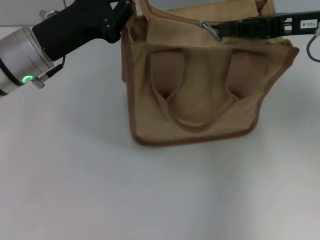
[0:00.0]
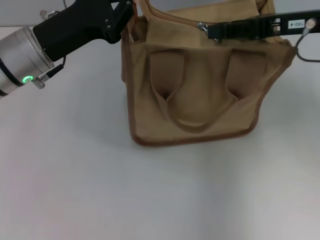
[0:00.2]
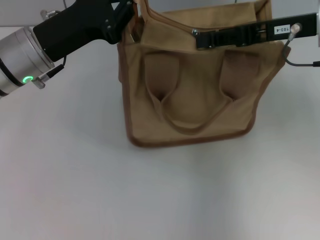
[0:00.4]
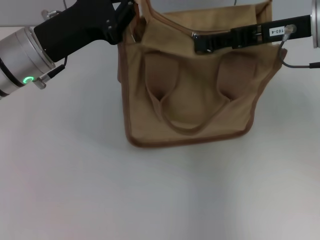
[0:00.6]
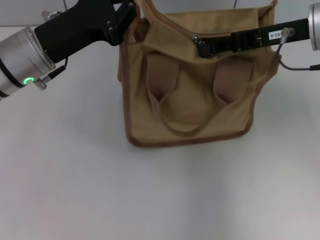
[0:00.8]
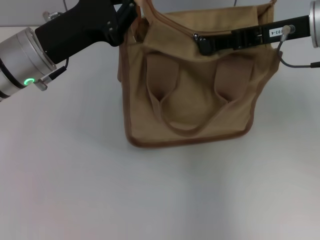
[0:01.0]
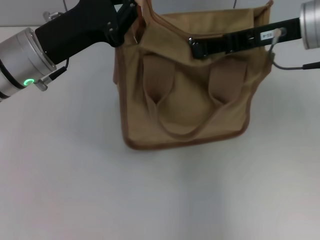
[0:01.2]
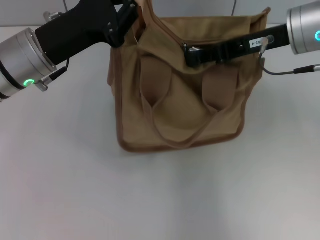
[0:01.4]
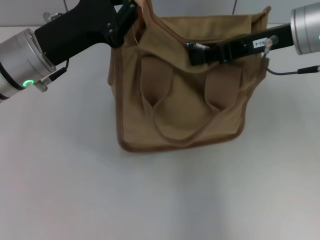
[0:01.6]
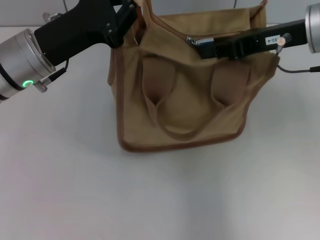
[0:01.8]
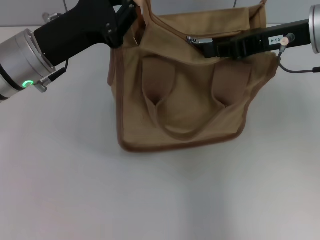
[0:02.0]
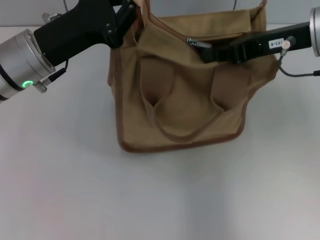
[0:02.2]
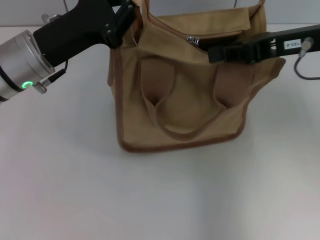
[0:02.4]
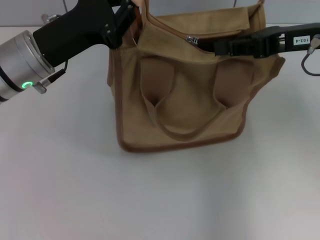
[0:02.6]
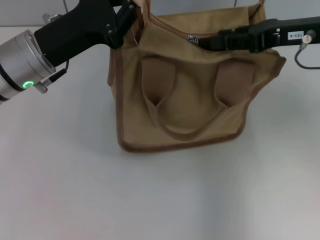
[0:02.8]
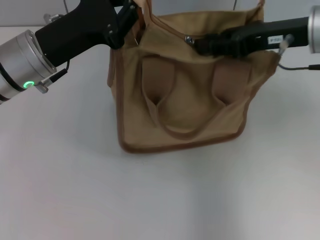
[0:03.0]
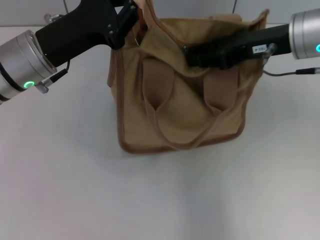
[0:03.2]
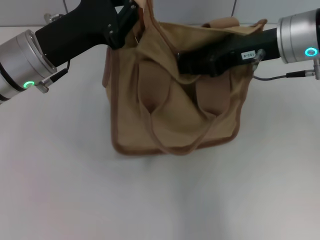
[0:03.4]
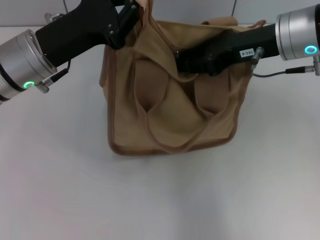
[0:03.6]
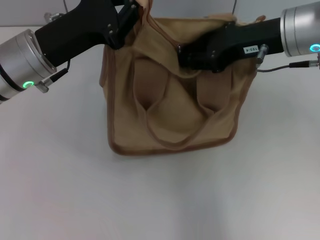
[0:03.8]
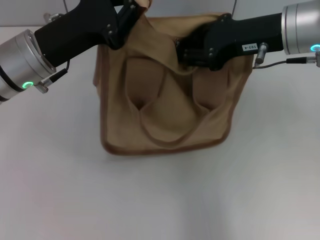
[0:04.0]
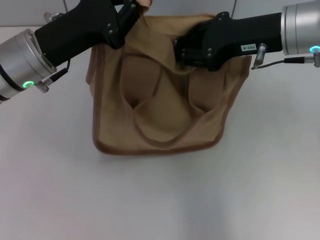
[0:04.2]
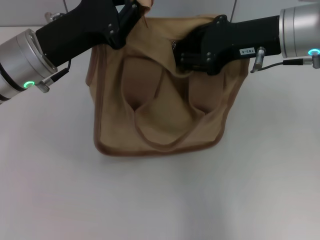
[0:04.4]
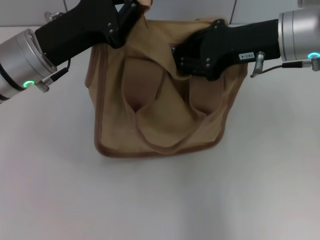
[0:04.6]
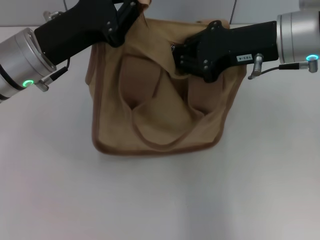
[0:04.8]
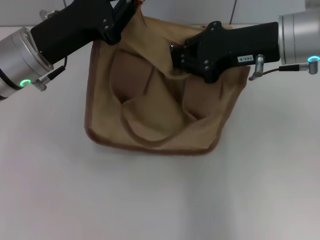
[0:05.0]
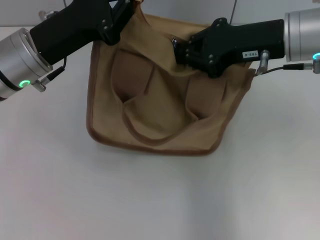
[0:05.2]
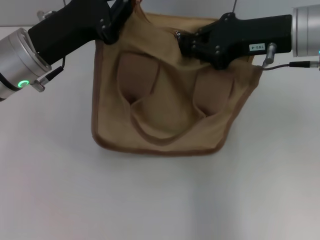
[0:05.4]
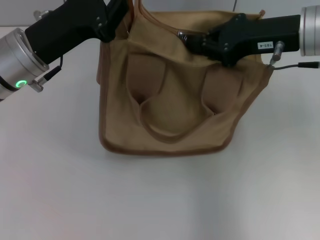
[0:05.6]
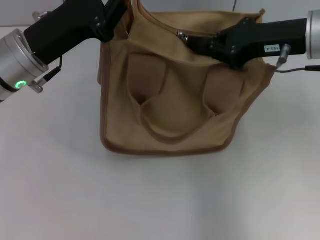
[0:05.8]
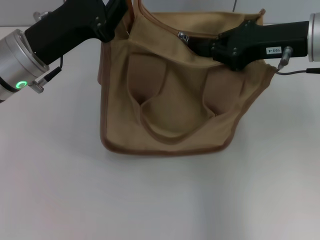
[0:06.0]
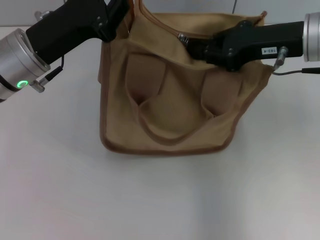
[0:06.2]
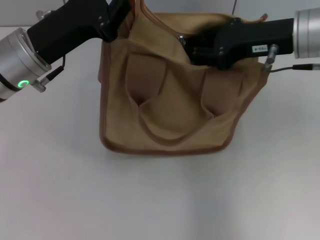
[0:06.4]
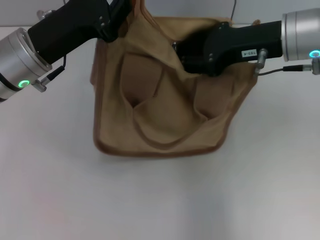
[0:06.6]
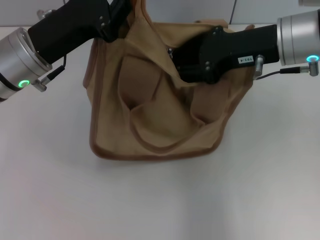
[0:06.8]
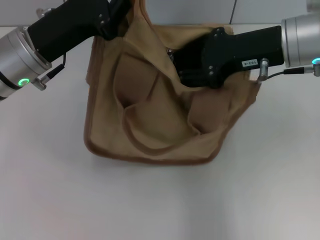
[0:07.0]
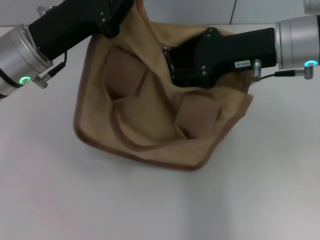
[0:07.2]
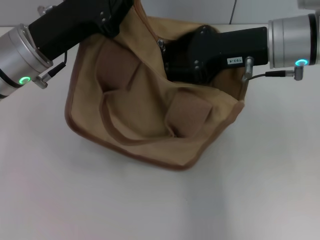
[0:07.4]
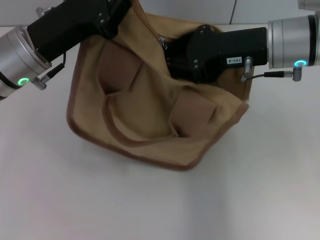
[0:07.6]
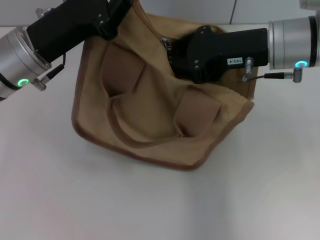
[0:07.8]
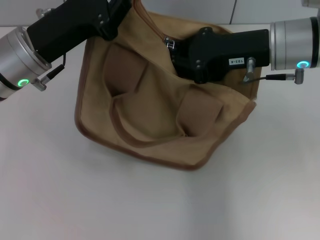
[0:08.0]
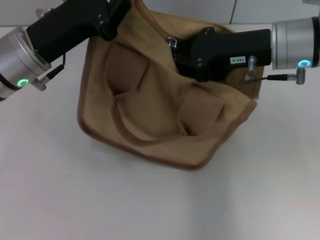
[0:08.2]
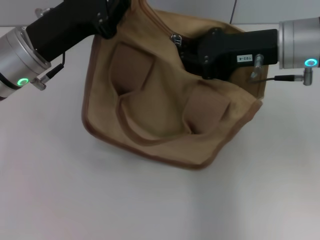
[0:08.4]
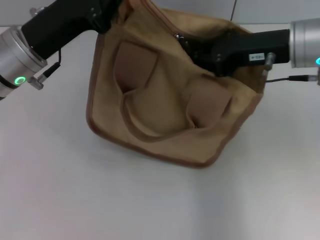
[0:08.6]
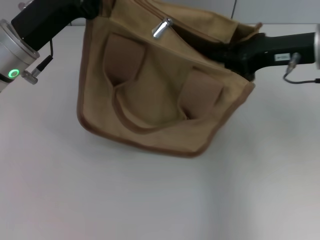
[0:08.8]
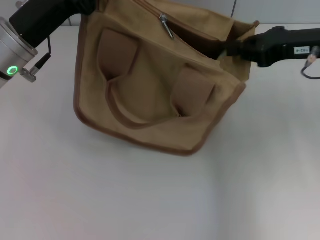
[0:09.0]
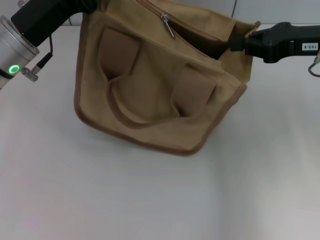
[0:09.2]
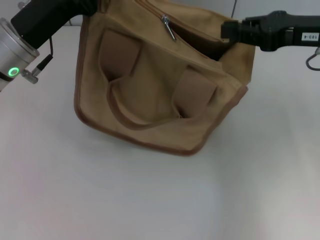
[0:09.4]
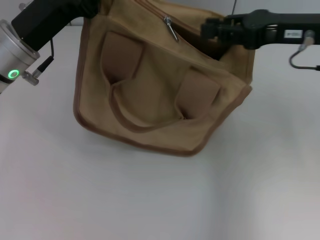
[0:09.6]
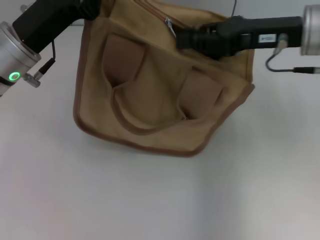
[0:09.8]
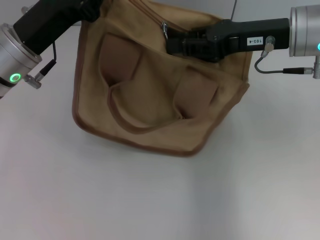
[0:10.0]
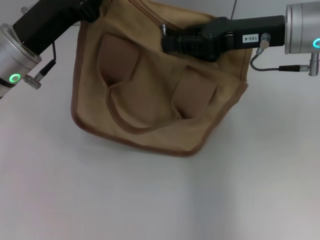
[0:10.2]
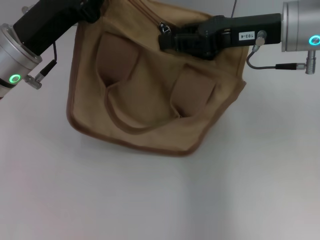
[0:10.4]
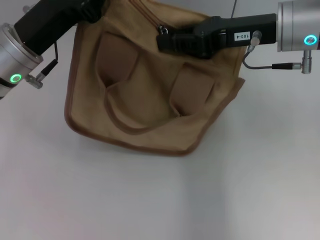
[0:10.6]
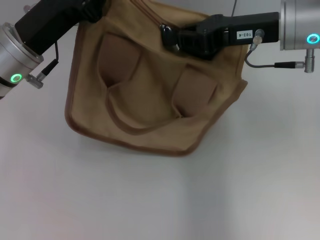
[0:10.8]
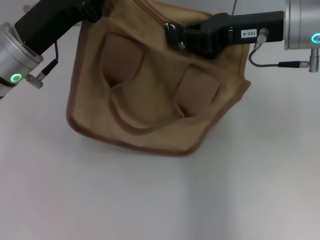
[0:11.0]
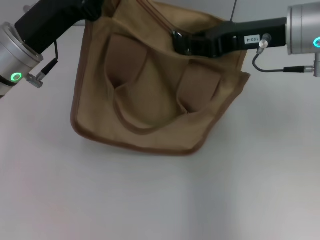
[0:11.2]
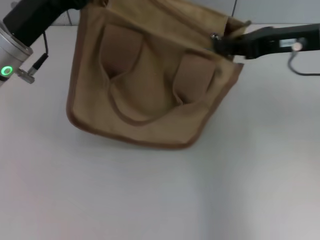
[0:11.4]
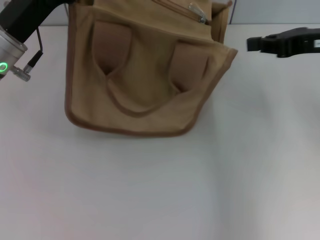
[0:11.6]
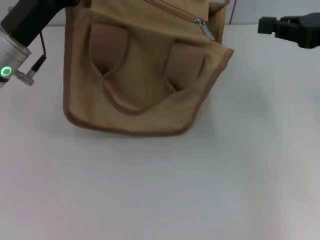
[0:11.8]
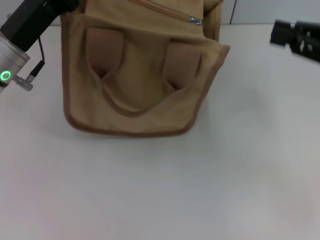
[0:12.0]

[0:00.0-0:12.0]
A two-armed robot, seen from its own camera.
Step, 0:00.0 to 0:11.4: Pull up the zipper with your right hand.
0:00.0 to 0:01.6: The right gripper shifts roughly 5 cm to the left.
0:01.6 to 0:03.0: The grippers stay close to where they were, moving slightly.
0:04.4 to 0:06.0: The grippers move only a little.
0:06.0 to 0:07.6: The right gripper opens up.
0:07.6 to 0:09.0: The right gripper is displaced to the right by approximately 10 cm, and closes up.
0:09.0 to 0:10.4: The right gripper goes approximately 5 cm to the left, and opens.
0:10.4 to 0:12.0: The right gripper goes approximately 15 cm to the right and backward.

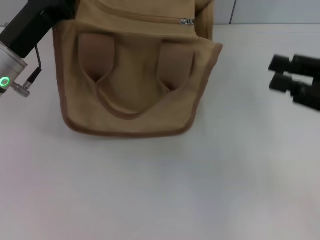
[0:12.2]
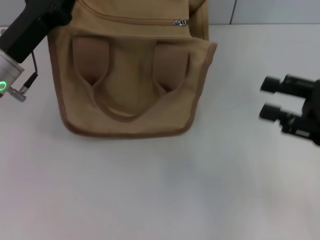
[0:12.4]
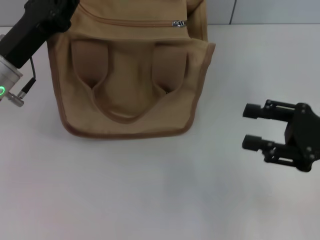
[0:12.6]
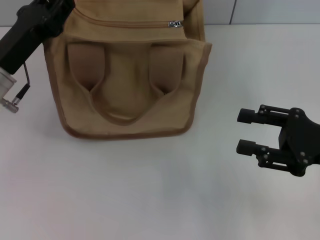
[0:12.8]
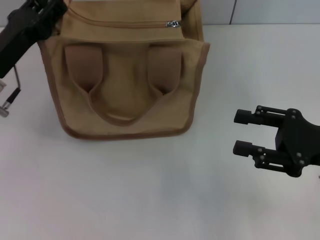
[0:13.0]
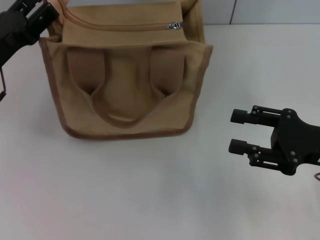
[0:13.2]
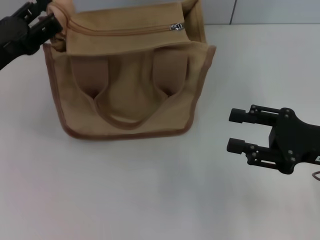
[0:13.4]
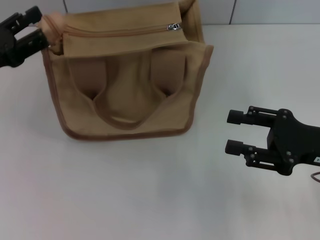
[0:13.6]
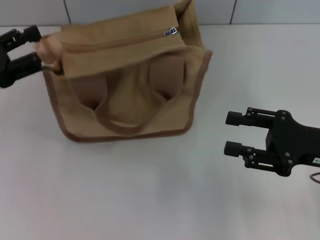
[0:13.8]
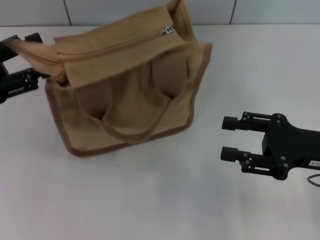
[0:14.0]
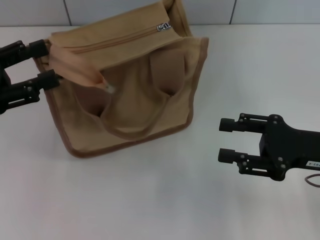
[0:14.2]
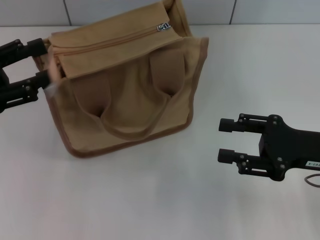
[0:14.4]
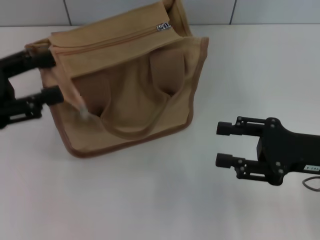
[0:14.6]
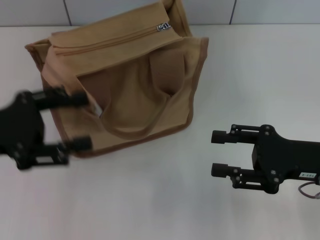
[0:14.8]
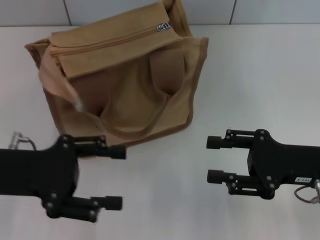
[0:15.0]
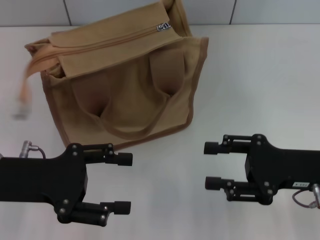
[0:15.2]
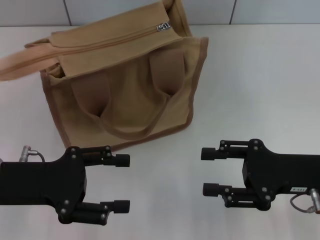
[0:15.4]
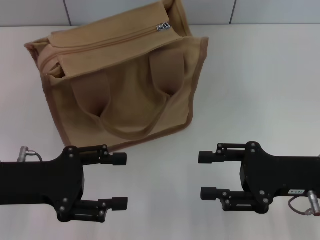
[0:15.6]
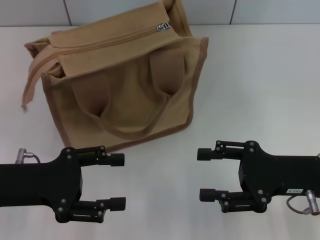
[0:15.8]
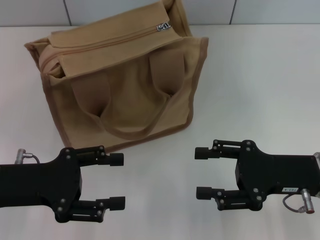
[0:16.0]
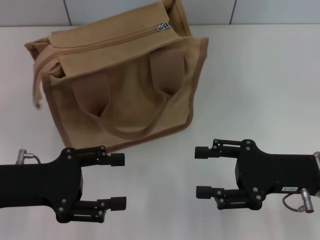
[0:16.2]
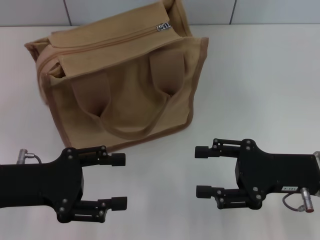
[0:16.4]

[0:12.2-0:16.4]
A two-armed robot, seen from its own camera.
Step, 0:12.2 to 0:14.8: Grab the zipper with your left hand.
0:12.2 to 0:13.6: The right gripper shifts roughly 5 cm downward, and opens. Meanwhile the left gripper moves to the left, about 10 cm, and opens.
0:13.6 to 0:15.0: The left gripper travels backward by roughly 5 cm.
0:15.0 to 0:16.4: The grippers make only small movements.

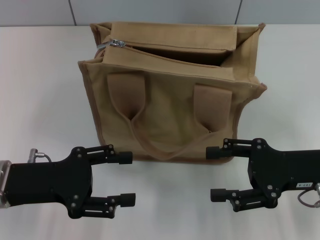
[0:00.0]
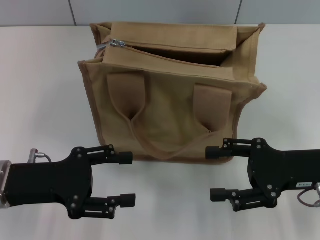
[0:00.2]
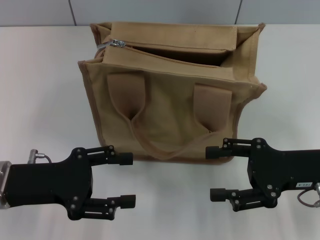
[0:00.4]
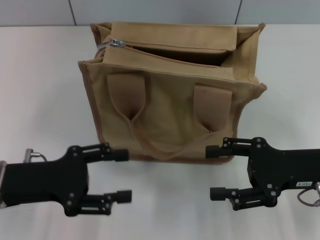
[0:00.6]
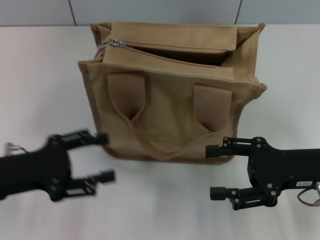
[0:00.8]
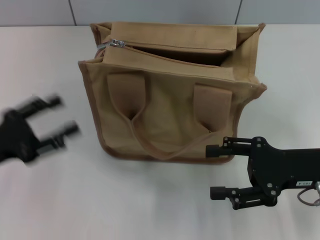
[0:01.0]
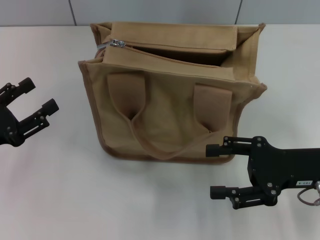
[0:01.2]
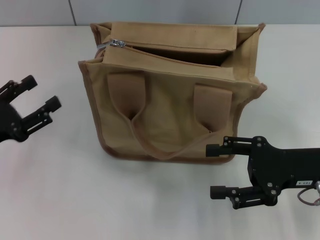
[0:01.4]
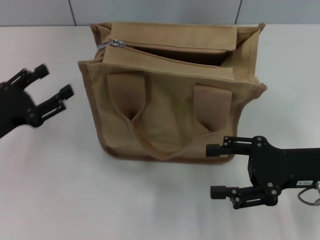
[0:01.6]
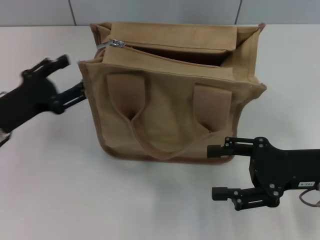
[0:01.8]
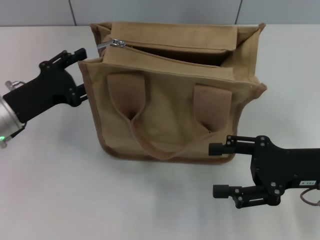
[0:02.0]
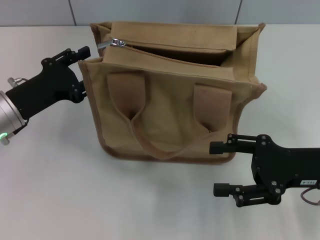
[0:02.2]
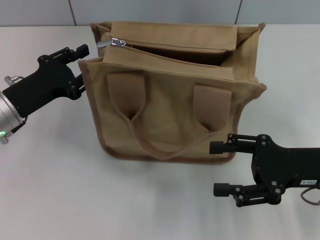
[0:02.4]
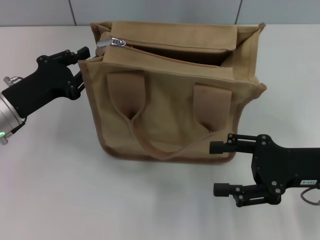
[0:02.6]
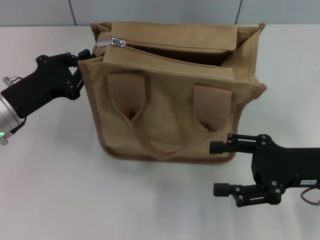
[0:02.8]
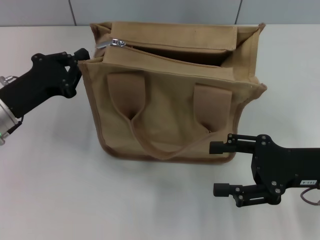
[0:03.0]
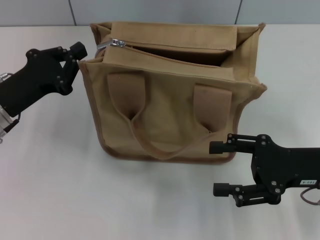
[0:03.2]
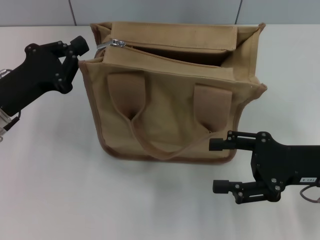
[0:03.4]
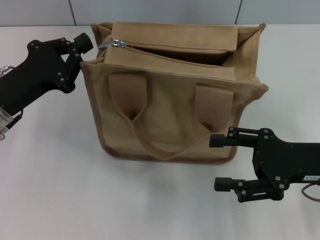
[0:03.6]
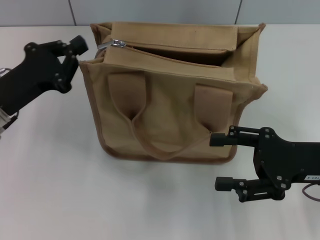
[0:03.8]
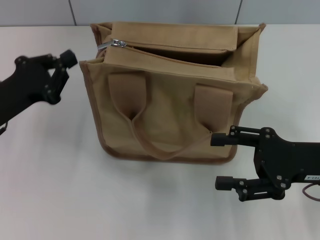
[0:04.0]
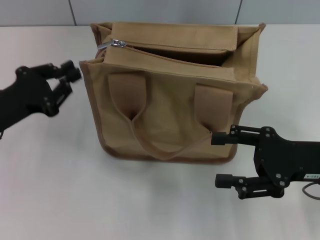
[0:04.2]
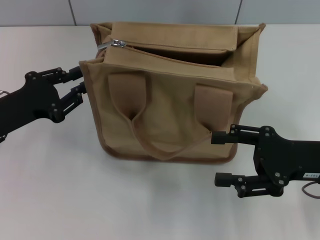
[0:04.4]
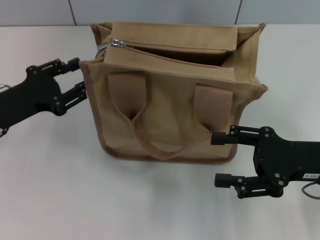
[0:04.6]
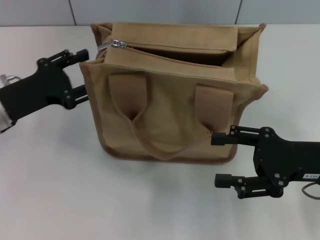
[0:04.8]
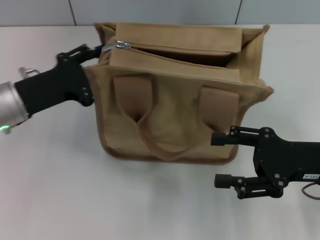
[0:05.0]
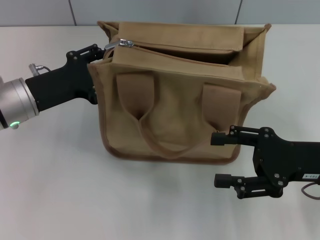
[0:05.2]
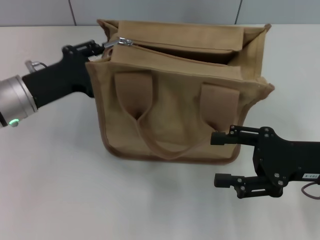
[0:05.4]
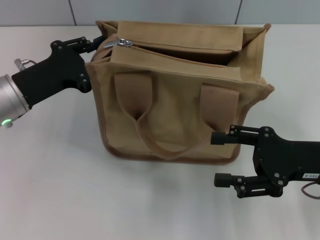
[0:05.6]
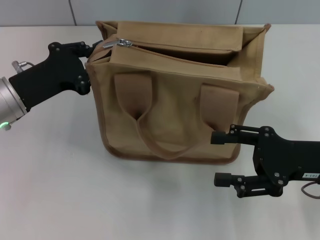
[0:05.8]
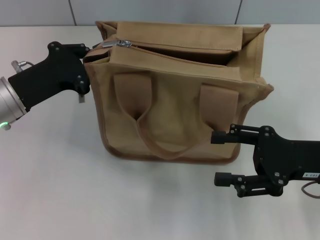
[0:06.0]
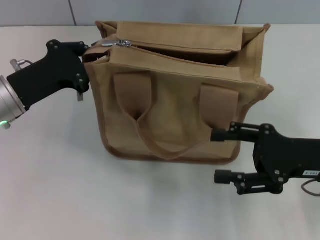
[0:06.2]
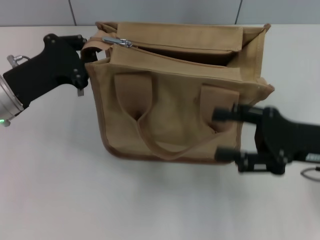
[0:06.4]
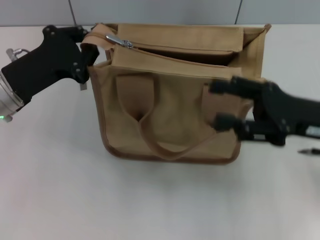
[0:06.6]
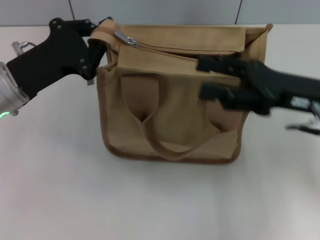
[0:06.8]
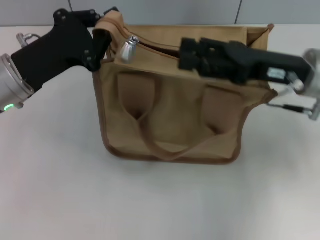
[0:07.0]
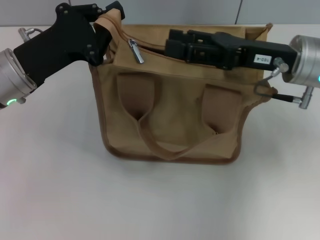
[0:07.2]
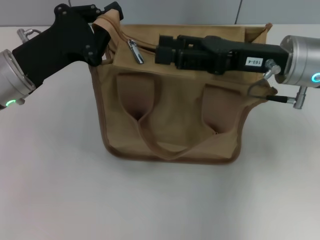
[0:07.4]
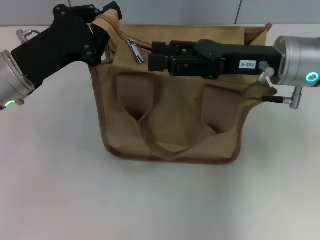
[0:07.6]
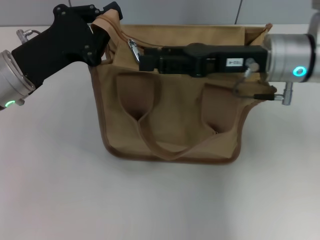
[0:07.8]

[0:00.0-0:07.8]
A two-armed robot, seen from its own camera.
0:00.0 to 0:01.6: The left gripper shifts roughly 5 cm to the left.
0:01.6 to 0:03.2: The left gripper changes place by approximately 5 cm, and closes.
0:03.2 to 0:04.6: The left gripper opens up.
0:04.6 to 0:06.2: The left gripper closes its fingers.
0:06.2 to 0:07.8: The right gripper goes some 15 cm forward, to the left and upward.
